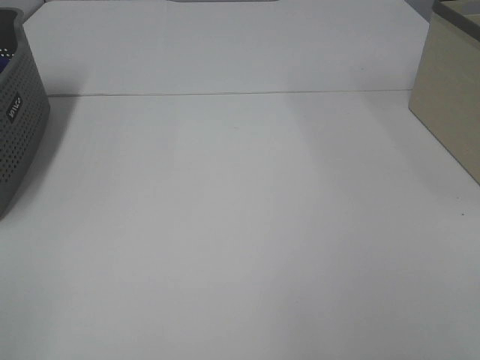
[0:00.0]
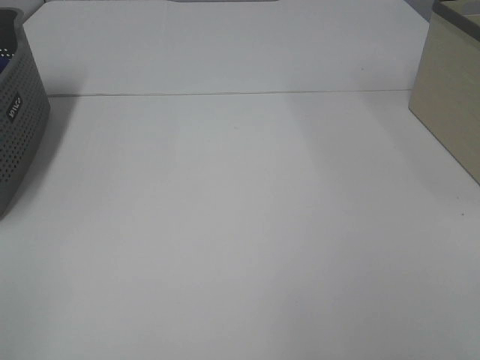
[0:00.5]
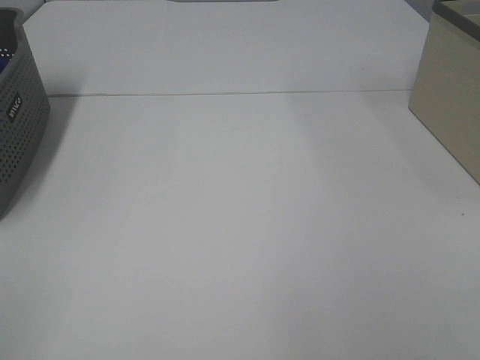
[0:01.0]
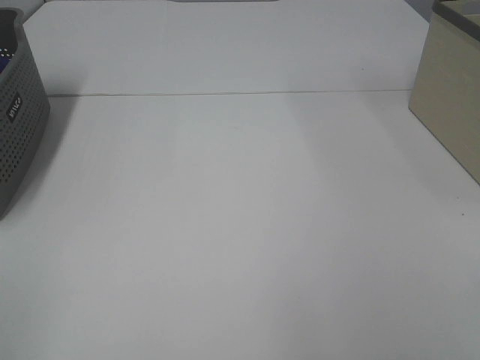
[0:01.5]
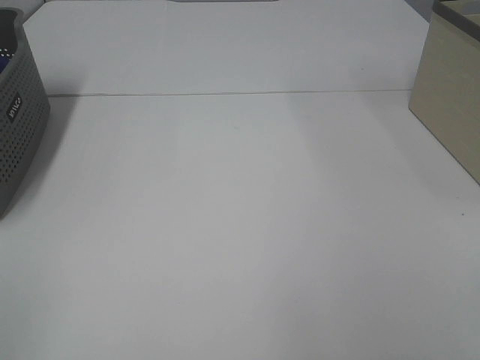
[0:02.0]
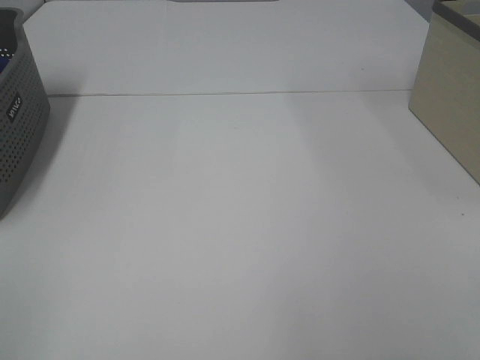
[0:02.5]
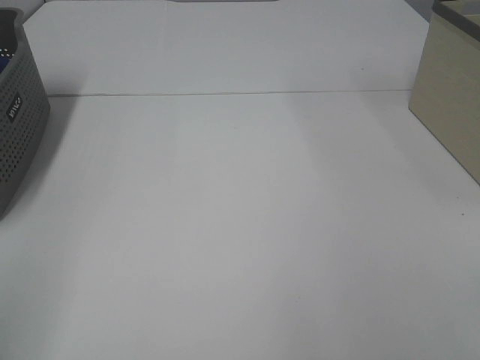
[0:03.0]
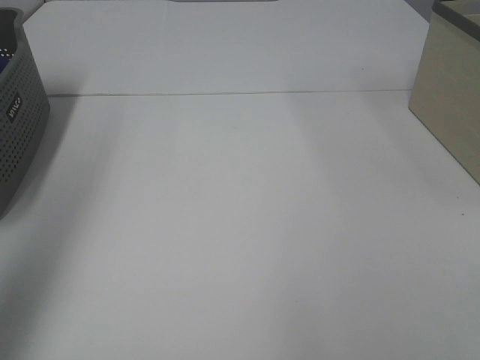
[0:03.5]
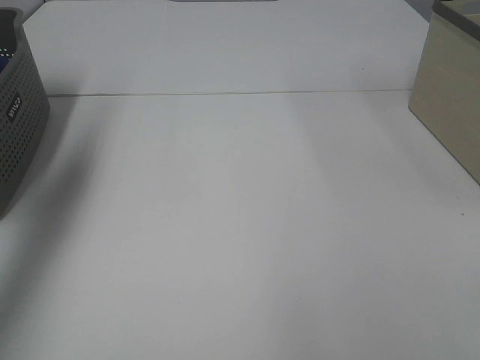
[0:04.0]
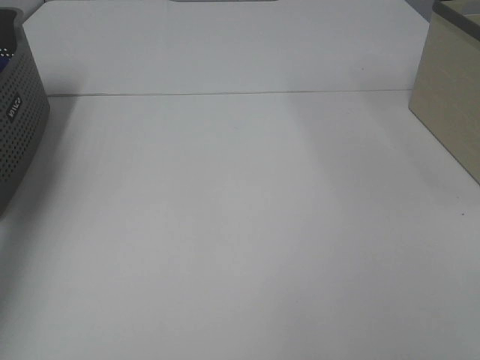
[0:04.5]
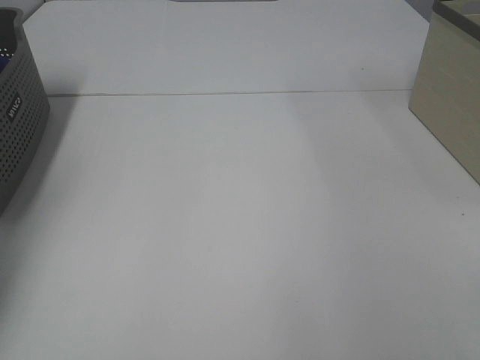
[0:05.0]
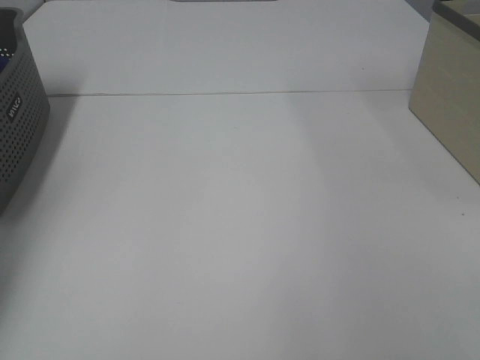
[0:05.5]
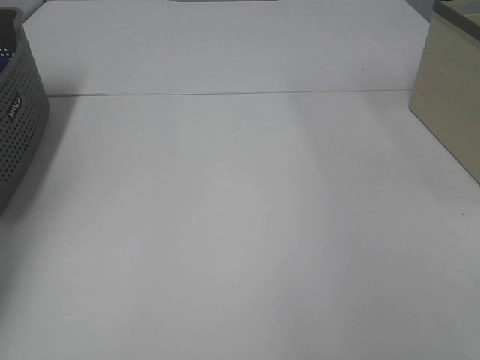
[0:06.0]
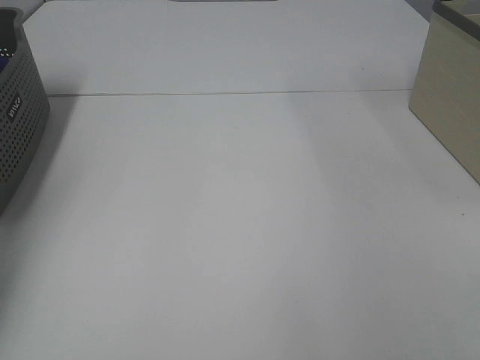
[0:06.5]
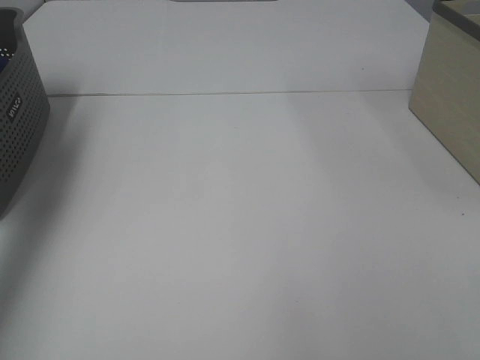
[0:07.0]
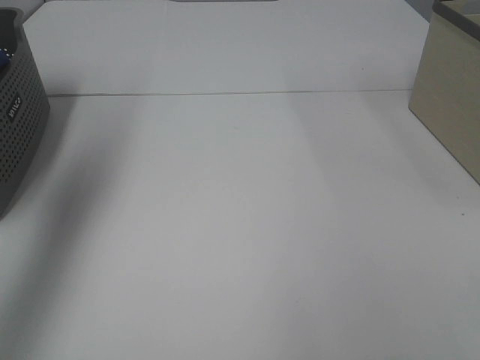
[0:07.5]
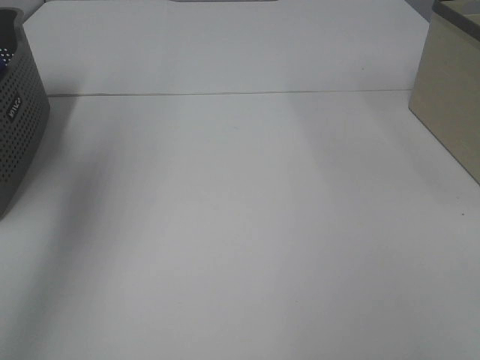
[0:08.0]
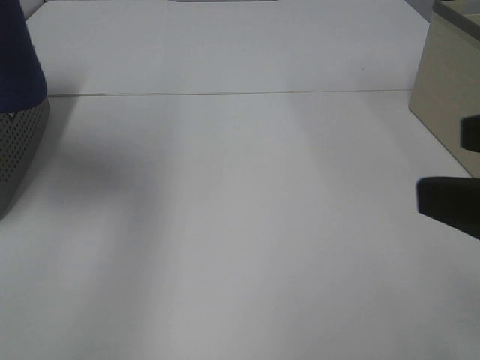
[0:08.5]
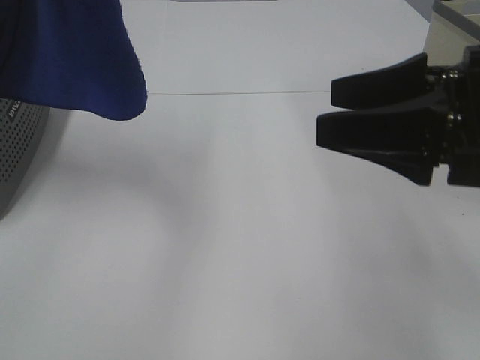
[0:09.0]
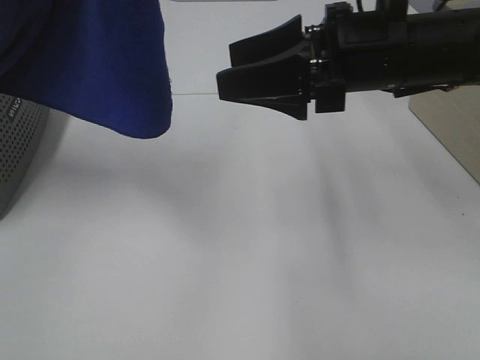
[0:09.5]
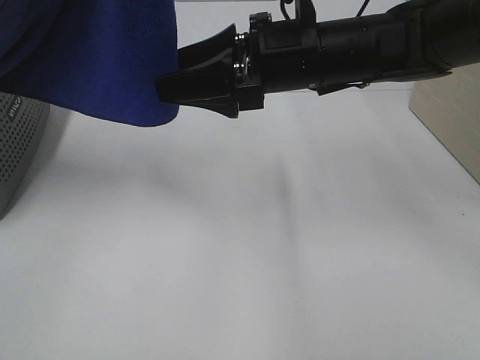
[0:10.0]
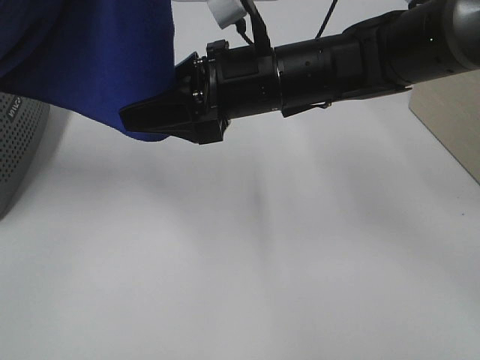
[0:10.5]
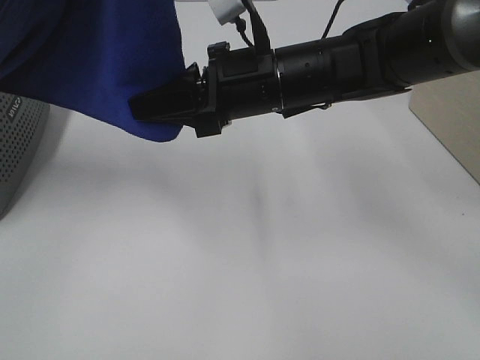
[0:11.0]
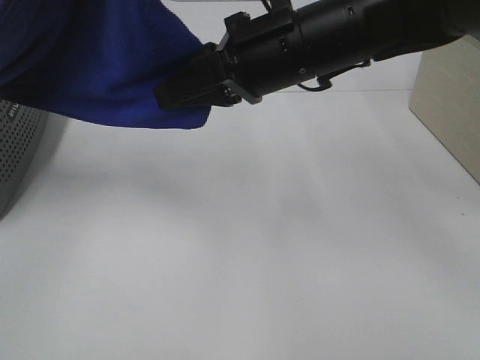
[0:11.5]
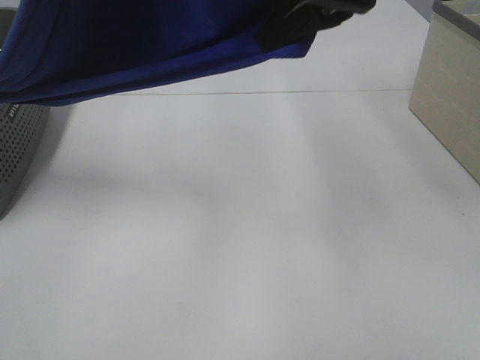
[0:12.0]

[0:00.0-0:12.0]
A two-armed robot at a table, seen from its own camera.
Task of the whole recording: Remove the towel and place it.
Step, 0:08.0 to 0:10.5: Right hand: grab a corner of the blue towel and straighten it.
0:00.0 to 0:02.0: Both grippers stay about where they are.
0:02.0 to 0:04.0: The left gripper goes about 35 cm forward.
0:04.0 to 0:06.0: The left gripper is displaced downward and forward by about 20 cm, and closes.
0:06.0 to 0:08.0: The left gripper heads upward, backward and to the right, covering some 40 cm.
0:08.0 to 0:10.0: The right gripper goes some 40 cm forward and to the left. The left gripper travels to the right by roughly 15 cm.
0:10.0 to 0:12.0: The right gripper moves upward, some 15 cm, and closes up.

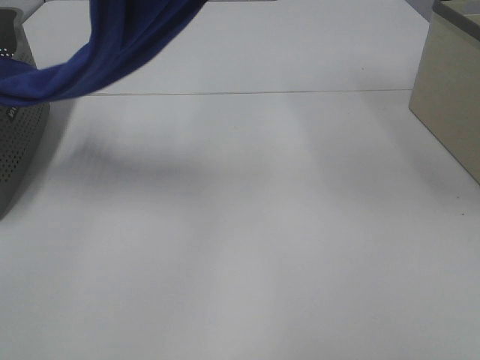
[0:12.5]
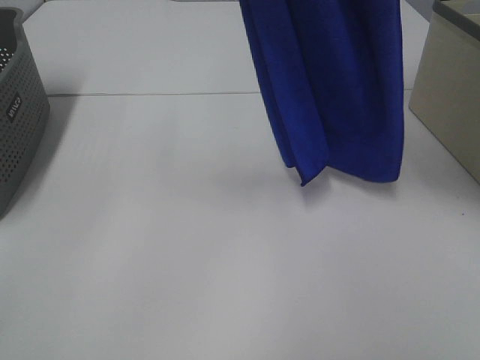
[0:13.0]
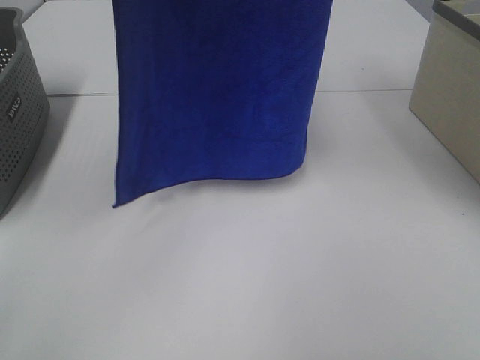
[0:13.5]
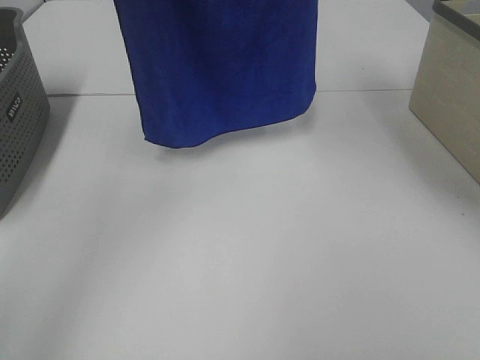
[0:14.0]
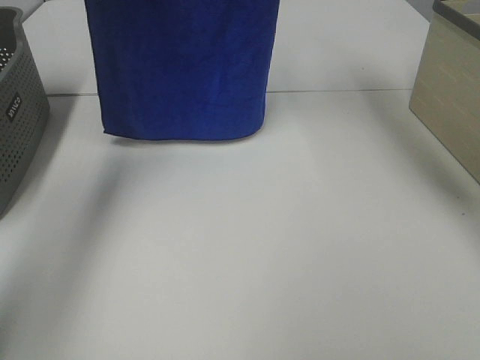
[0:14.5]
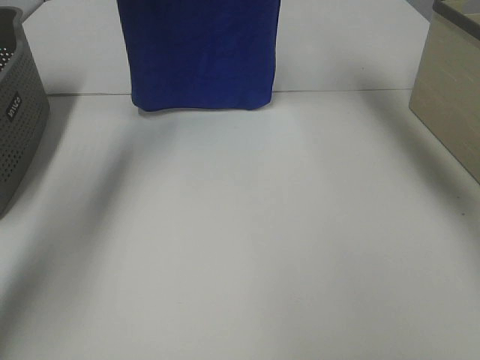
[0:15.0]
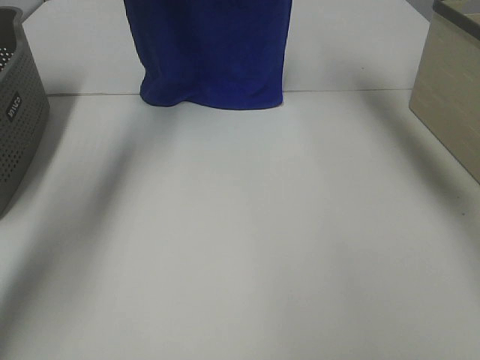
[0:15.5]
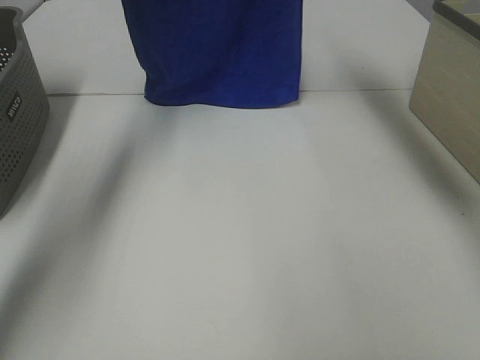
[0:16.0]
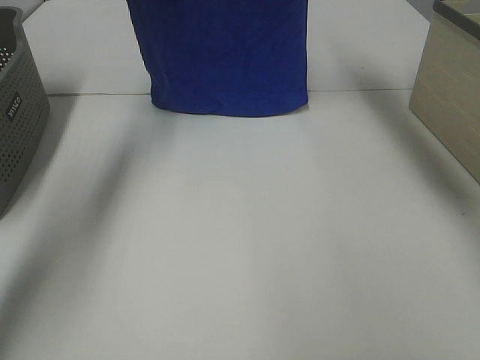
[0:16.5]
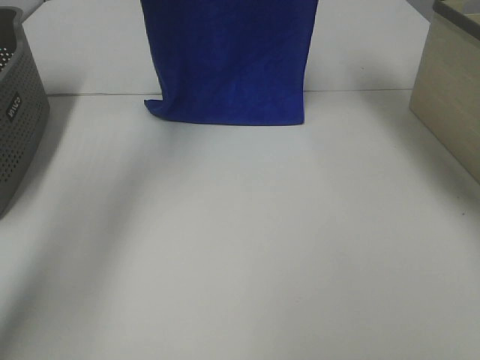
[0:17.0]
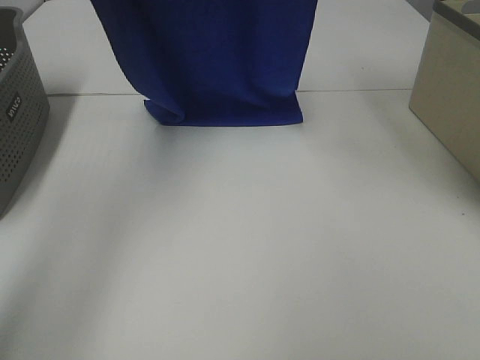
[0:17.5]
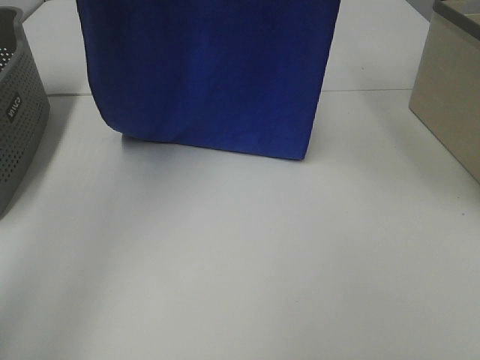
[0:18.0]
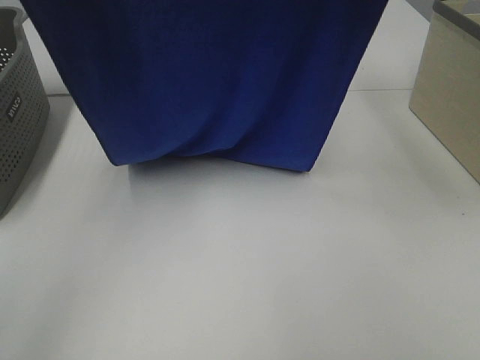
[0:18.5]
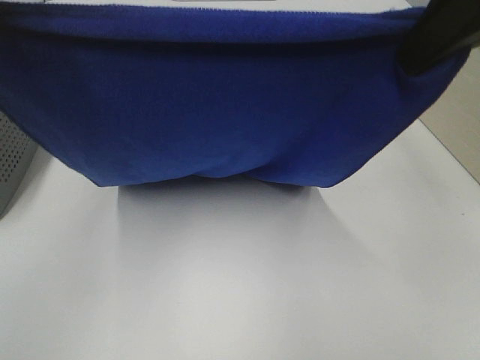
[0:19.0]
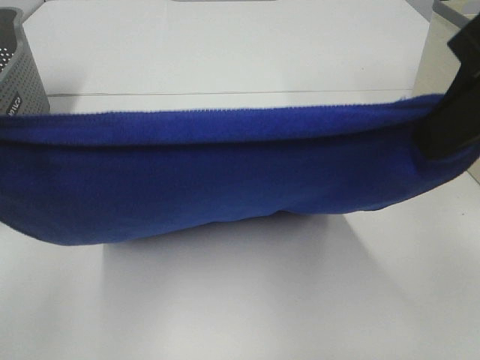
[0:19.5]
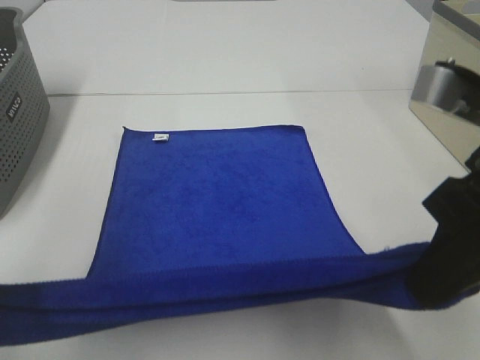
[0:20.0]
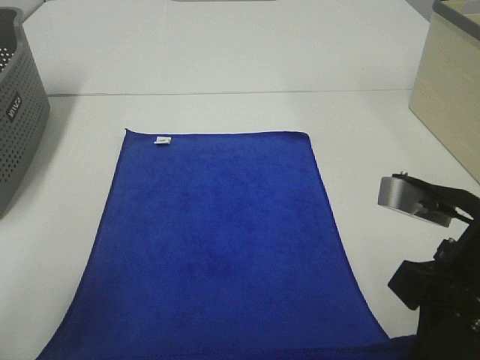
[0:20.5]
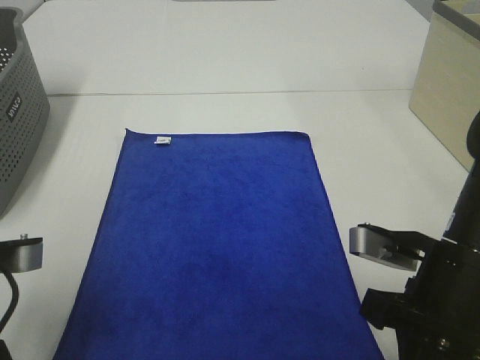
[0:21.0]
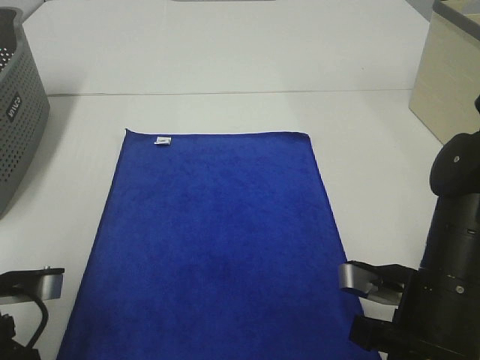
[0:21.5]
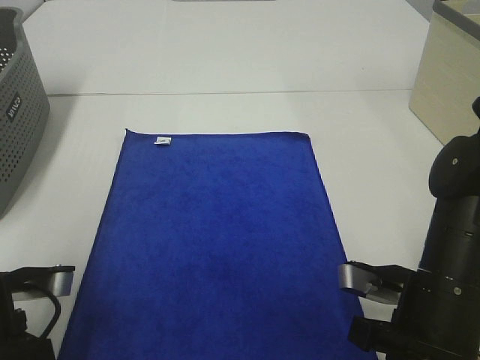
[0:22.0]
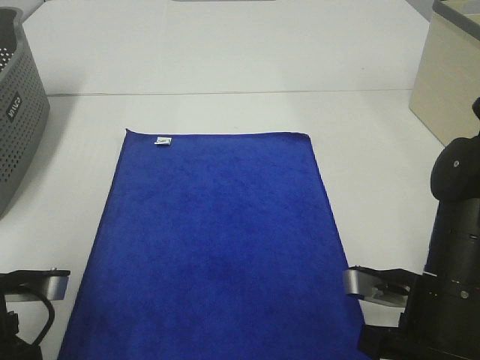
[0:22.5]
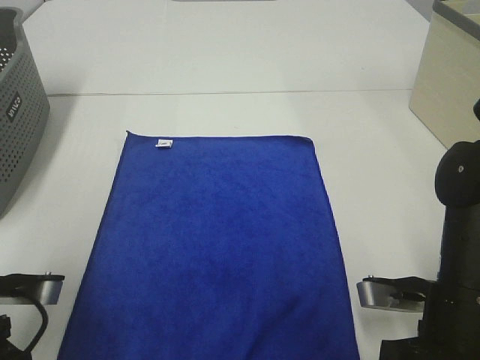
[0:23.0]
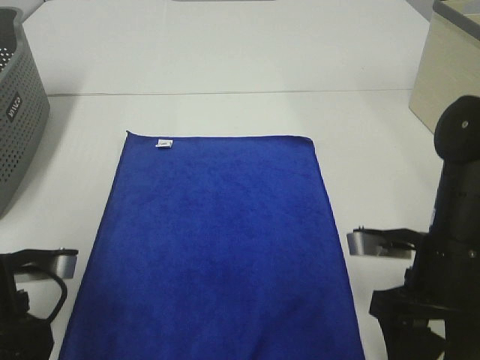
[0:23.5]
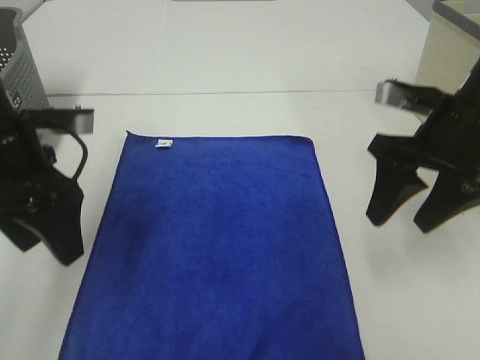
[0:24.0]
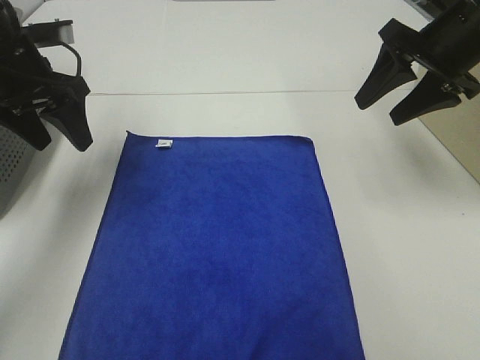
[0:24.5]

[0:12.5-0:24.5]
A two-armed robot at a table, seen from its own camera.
Task of the whole recording: Remove the towel and place it.
Step, 0:12.5 to 0:18.5: Left hand: spread the blue towel flat on the table.
Step, 0:12.5 to 0:18.5: Right hand: spread the blue towel flat on the table.
0:12.5 to 0:14.5: The grippers both shift forward by about 20 cm.
0:14.5 to 0:16.5: The left gripper heads forward, covering some 5 cm. Meanwhile the right gripper changes place by about 5 cm.
0:16.5 to 0:18.5: Both grippers travel together backward, roughly 20 cm.
0:18.5 to 0:20.5: Both grippers move downward and backward, about 25 cm.
0:20.5 to 0:22.5: Both grippers move downward, approximately 10 cm.
0:22.5 to 0:24.5: The two grippers go some 25 cm forward and upward. The right gripper opens up, while the left gripper opens up.

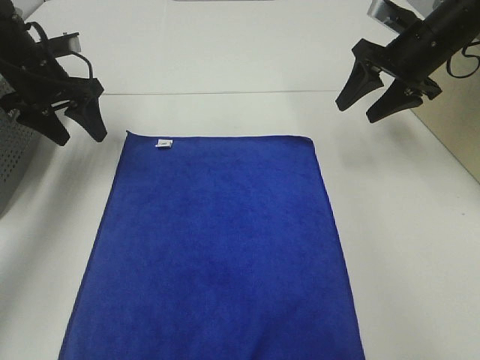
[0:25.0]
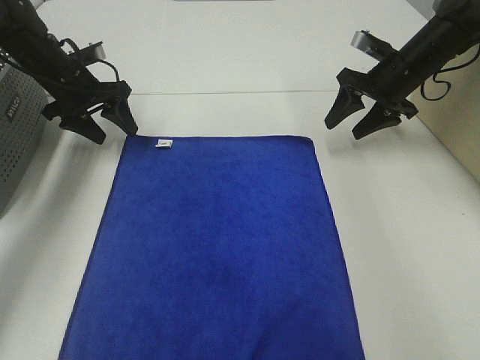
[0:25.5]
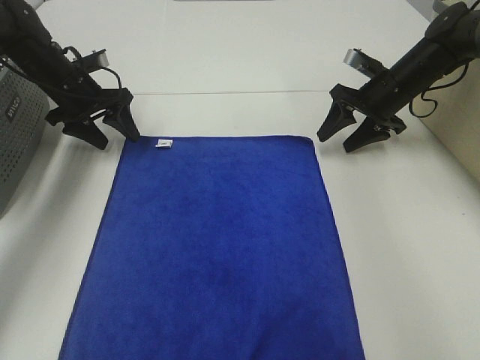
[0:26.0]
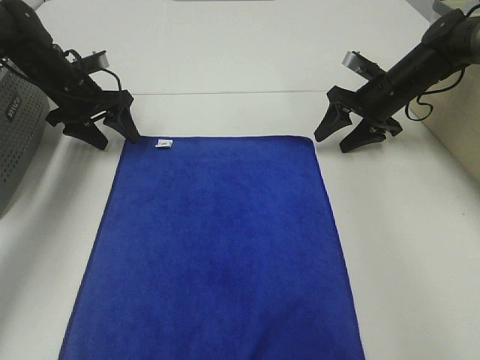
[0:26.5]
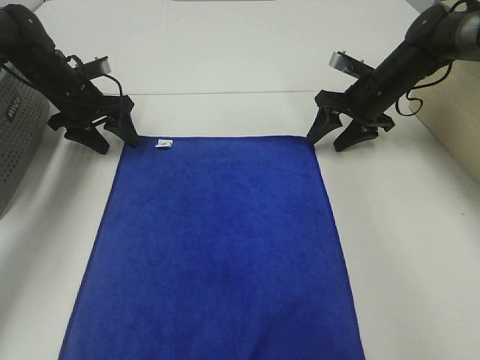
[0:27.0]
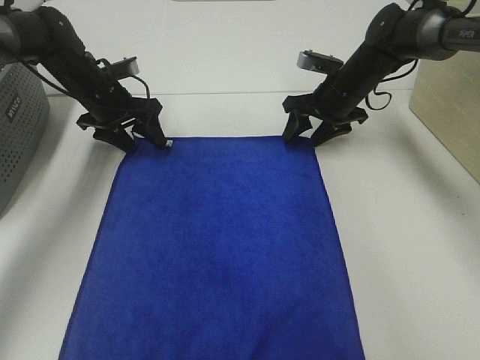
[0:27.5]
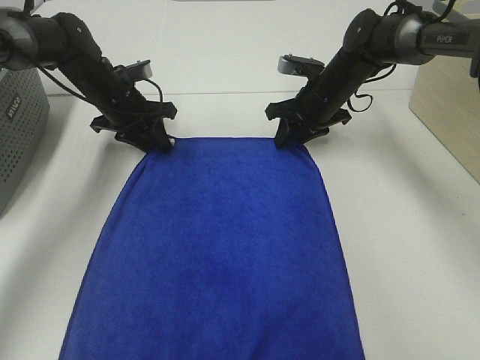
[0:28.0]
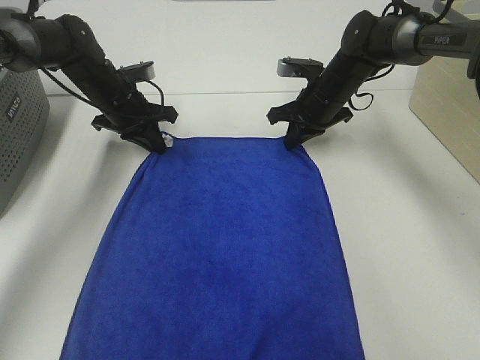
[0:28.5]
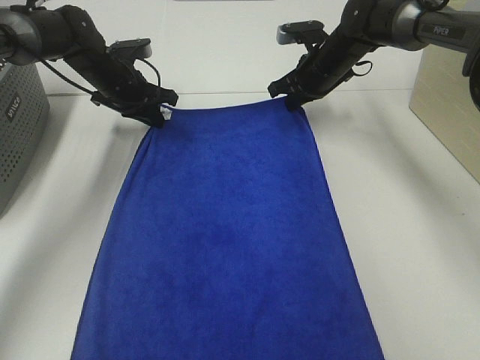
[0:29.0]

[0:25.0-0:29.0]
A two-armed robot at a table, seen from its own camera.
Task of the whole recording: Remove the towel and place it.
0:25.0 to 0:27.0: The right gripper heads downward, covering some 10 cm. Meanwhile the left gripper moves downward and forward, roughly 10 cm.
0:27.0 to 0:29.0: The left gripper heads to the right, covering about 5 cm, and closes. Meanwhile the right gripper is displaced to the left by about 10 cm, and closes.
